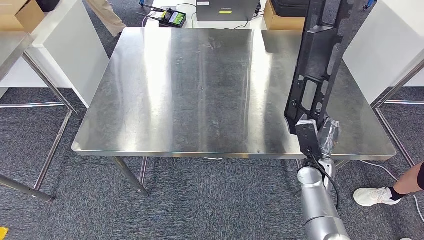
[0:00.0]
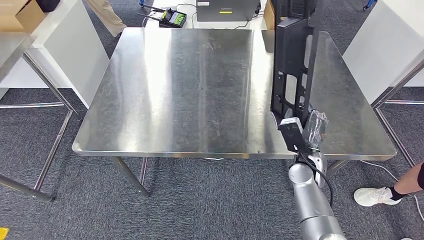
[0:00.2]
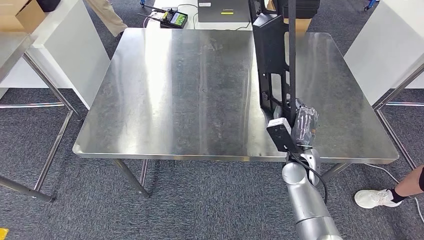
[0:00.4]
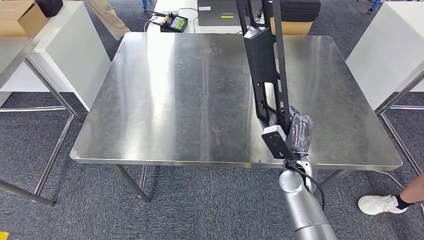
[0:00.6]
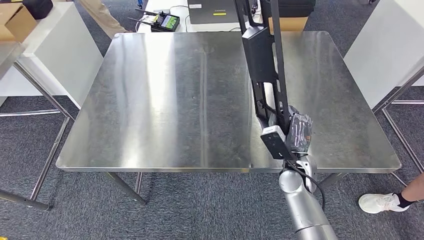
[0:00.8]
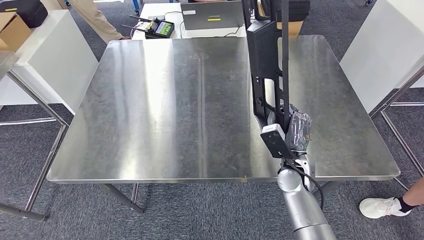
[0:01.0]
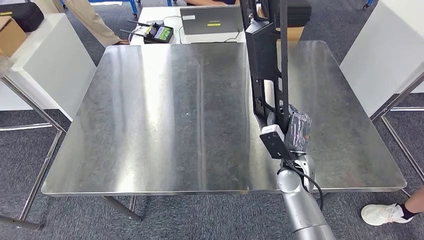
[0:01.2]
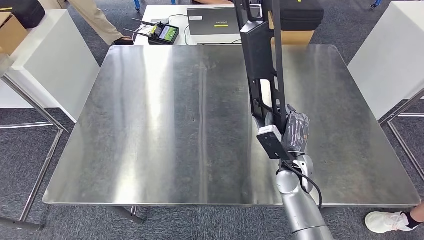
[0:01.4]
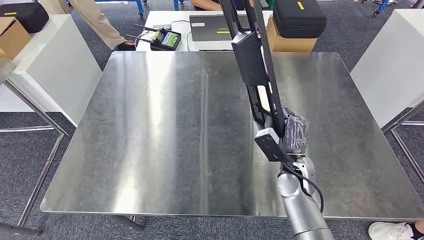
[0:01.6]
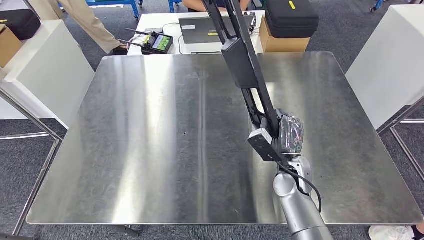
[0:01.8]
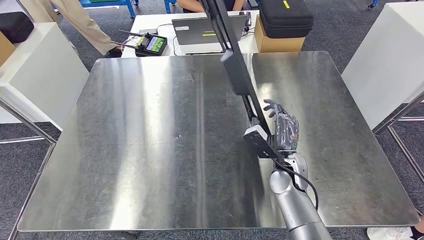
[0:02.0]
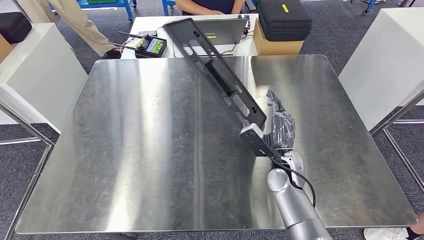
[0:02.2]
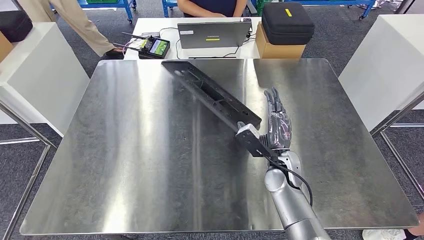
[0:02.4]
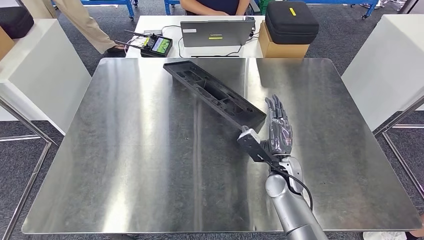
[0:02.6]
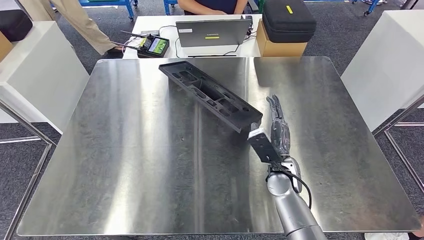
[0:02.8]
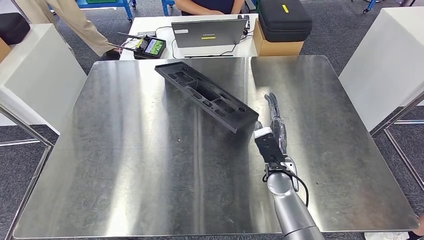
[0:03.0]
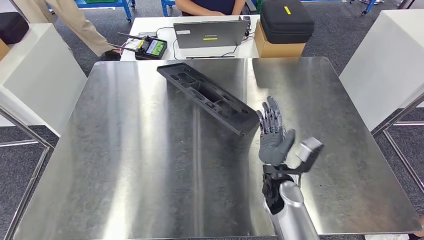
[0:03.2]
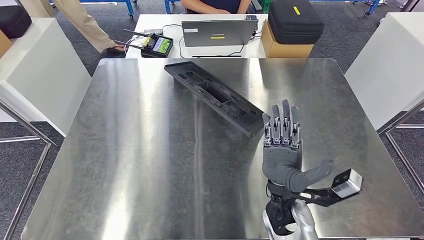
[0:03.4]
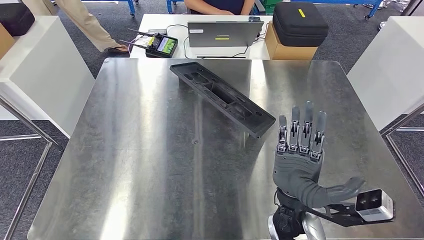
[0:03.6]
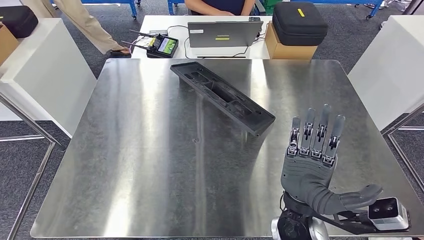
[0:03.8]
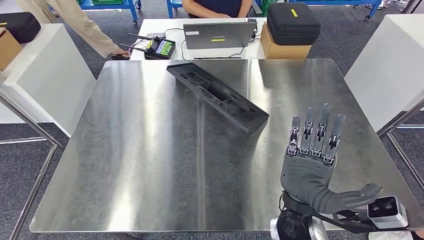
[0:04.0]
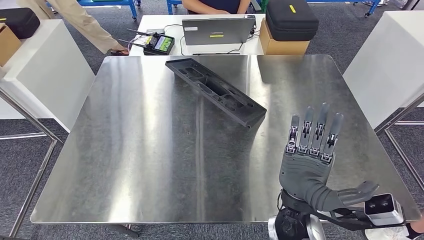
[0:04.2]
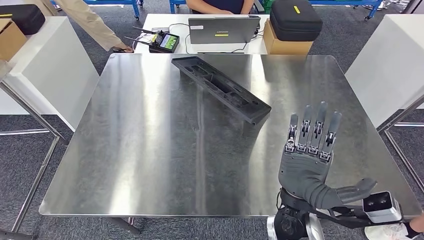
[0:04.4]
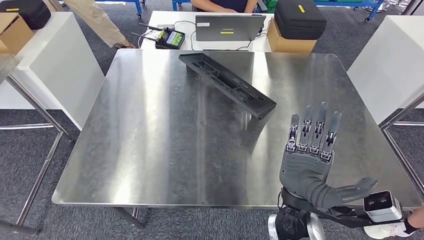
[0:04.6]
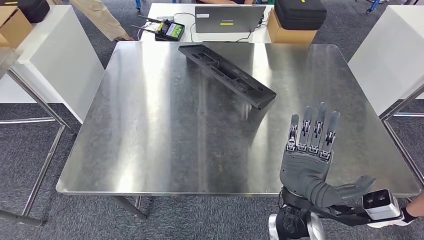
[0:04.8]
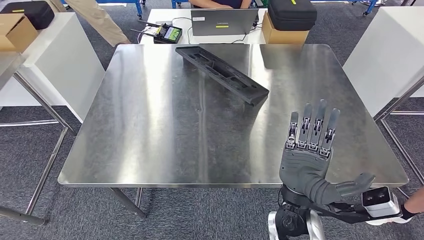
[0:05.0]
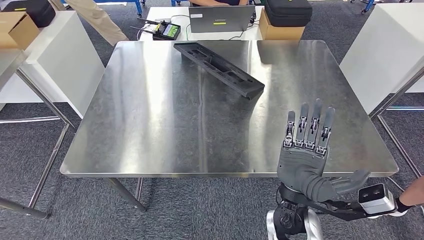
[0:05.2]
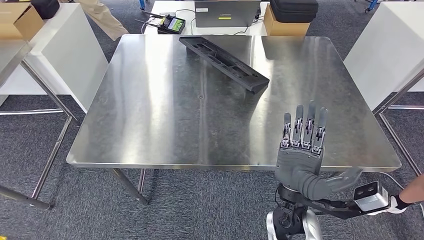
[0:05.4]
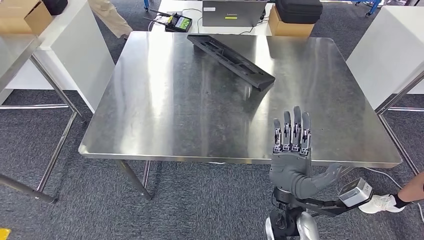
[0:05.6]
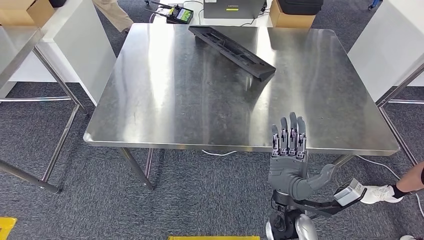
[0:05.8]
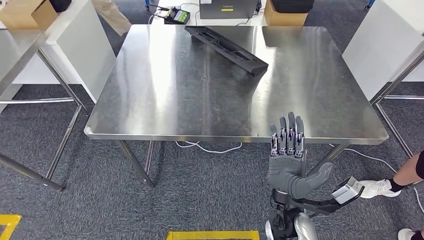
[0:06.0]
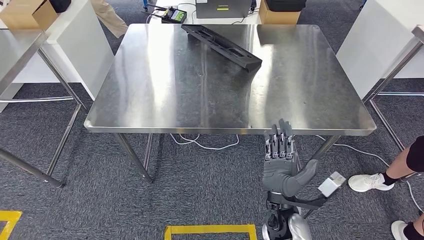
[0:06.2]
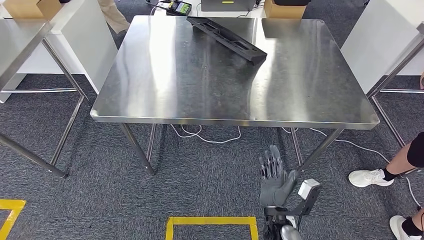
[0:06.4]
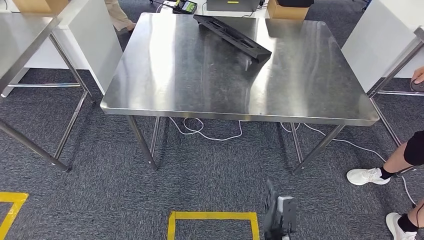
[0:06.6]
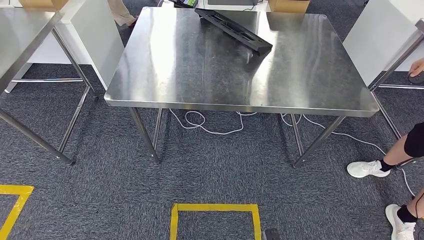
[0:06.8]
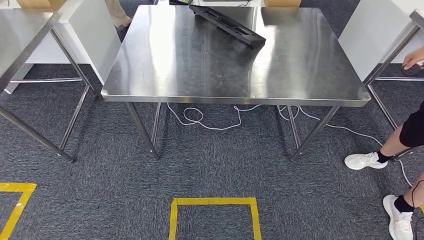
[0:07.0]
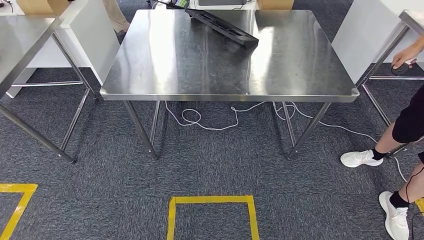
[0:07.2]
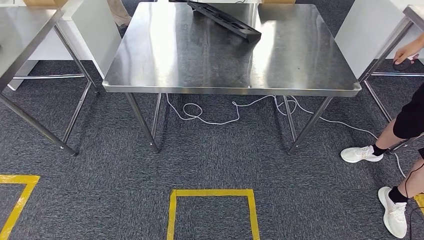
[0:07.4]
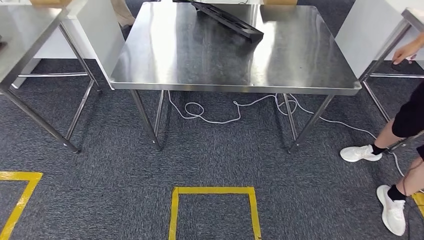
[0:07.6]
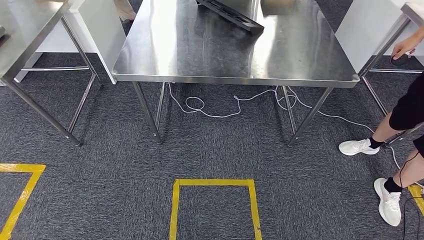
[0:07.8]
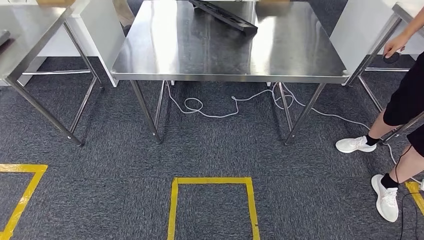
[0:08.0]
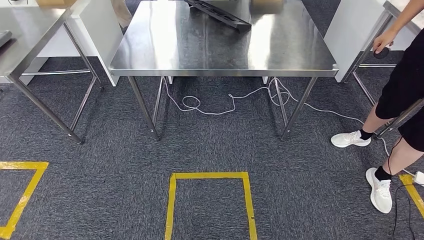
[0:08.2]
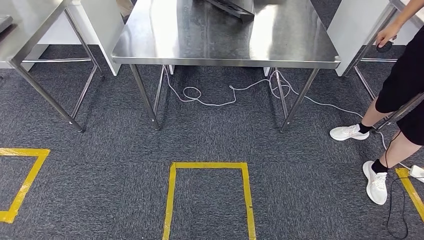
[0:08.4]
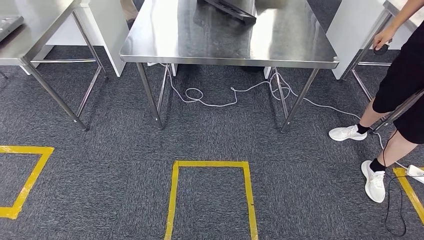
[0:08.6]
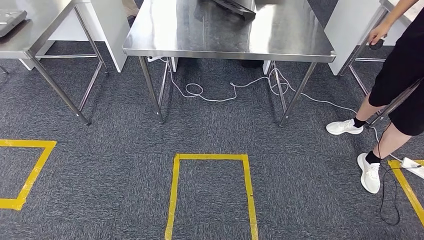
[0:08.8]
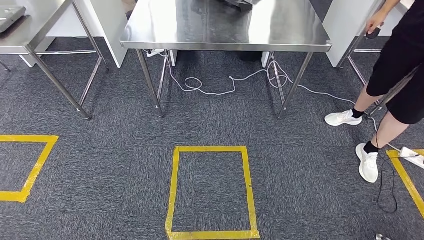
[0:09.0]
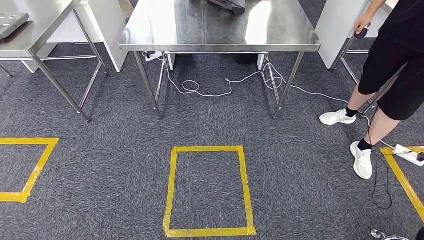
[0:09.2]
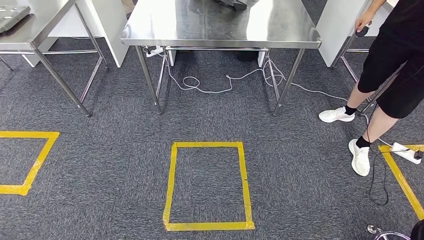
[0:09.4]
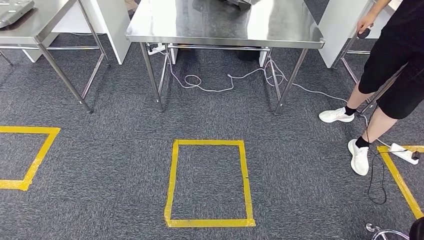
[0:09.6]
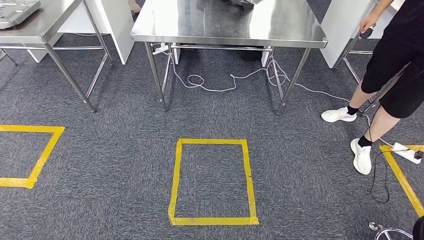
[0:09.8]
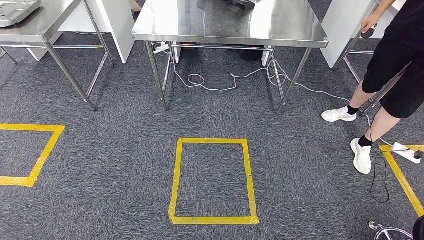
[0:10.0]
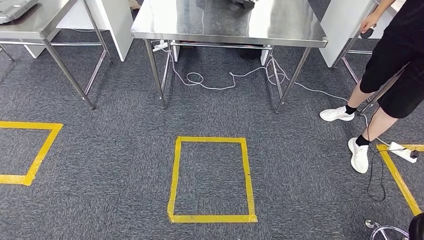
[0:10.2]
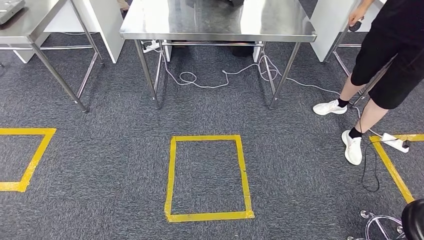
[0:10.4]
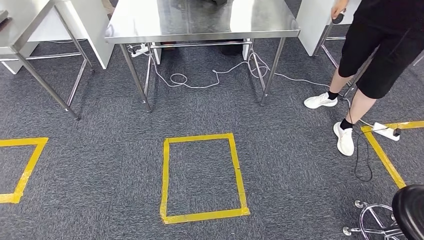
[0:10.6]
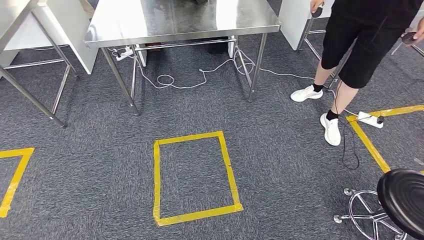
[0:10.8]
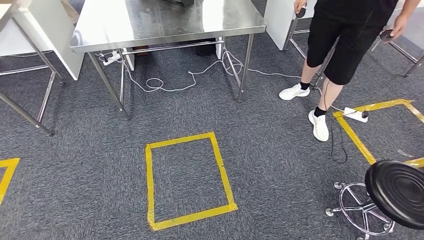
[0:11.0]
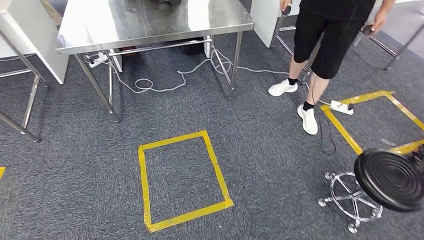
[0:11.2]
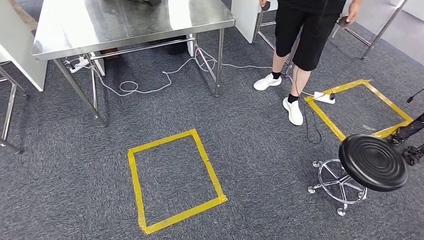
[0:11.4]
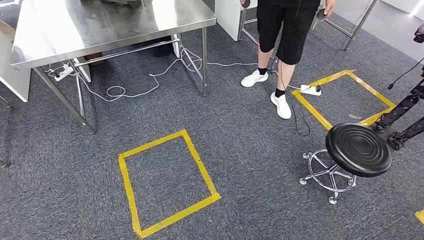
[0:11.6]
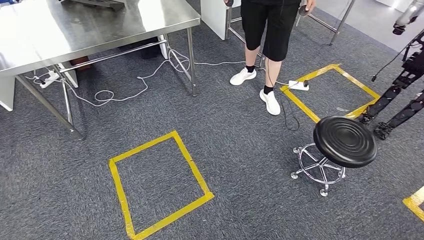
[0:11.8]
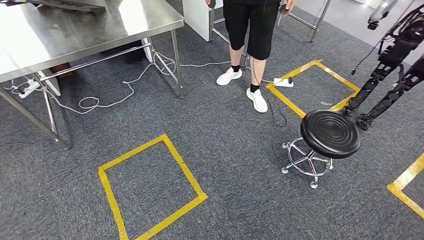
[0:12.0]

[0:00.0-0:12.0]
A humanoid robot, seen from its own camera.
Step, 0:00.0 to 0:06.2: Insert the large material into the corresponding slot on the workbench.

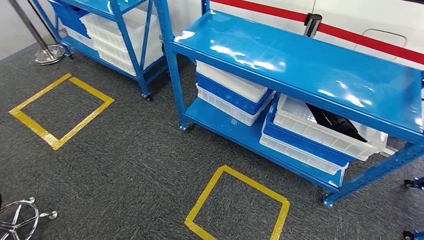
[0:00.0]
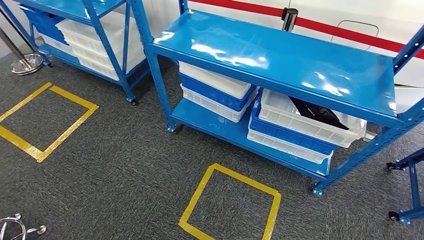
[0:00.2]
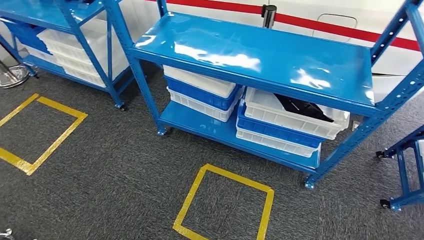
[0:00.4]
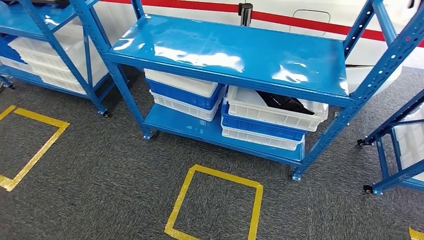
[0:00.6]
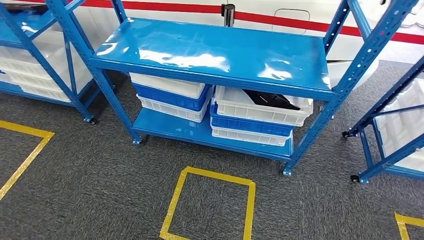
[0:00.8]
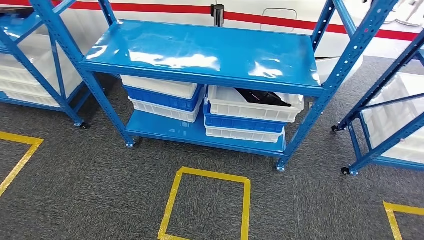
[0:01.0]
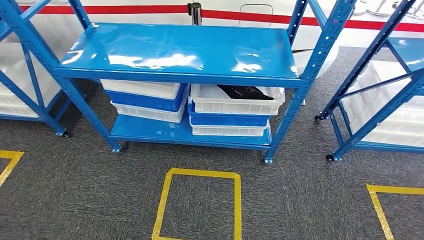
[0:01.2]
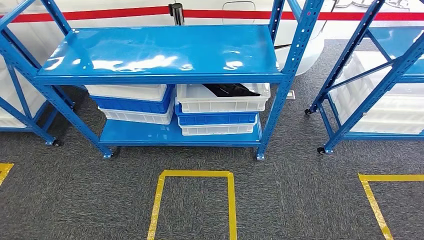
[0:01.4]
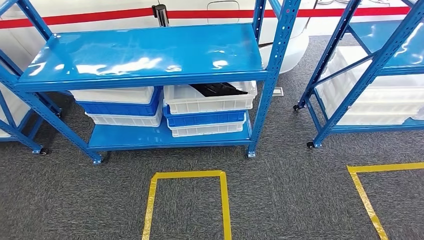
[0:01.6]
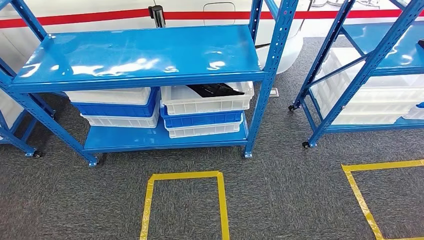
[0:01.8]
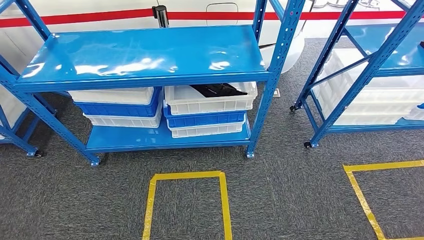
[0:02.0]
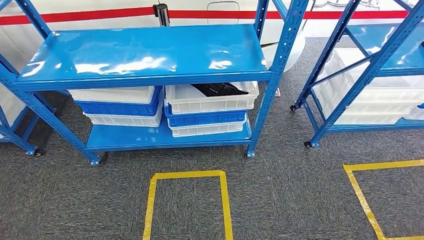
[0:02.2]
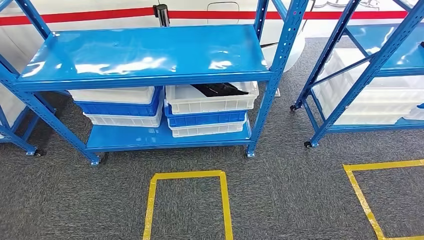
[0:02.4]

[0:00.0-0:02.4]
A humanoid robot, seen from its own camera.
Step, 0:00.0 to 0:02.2: Move to the initial position of the shelf.
